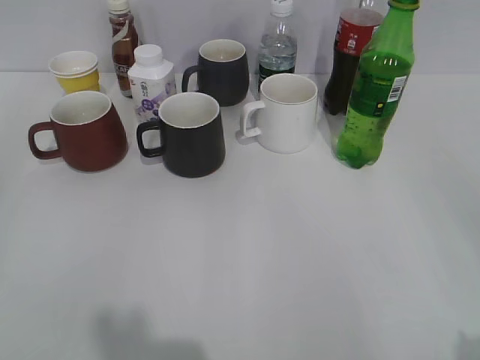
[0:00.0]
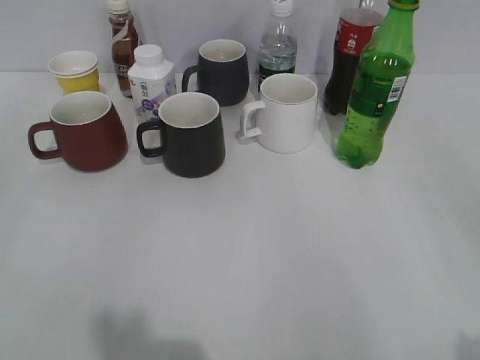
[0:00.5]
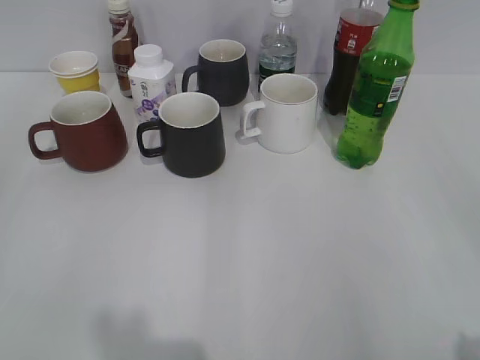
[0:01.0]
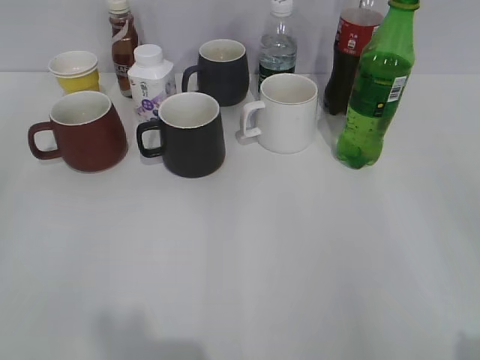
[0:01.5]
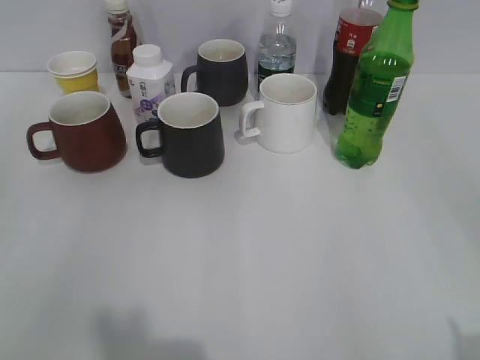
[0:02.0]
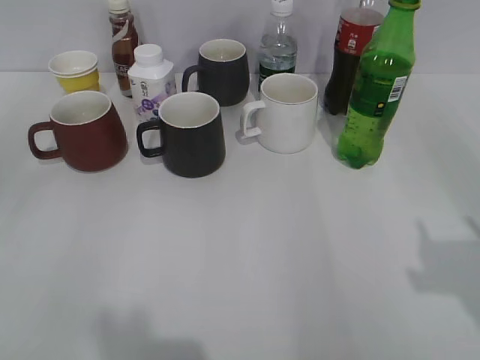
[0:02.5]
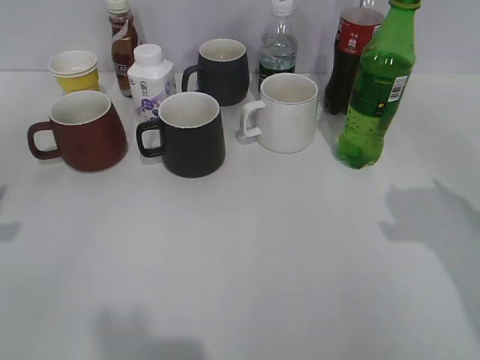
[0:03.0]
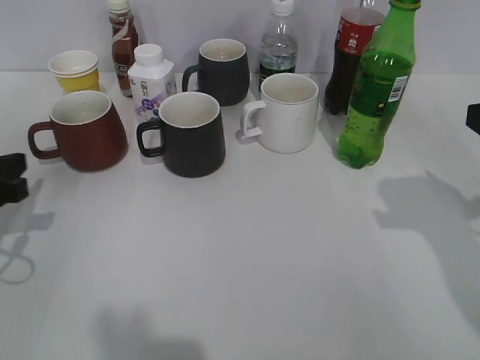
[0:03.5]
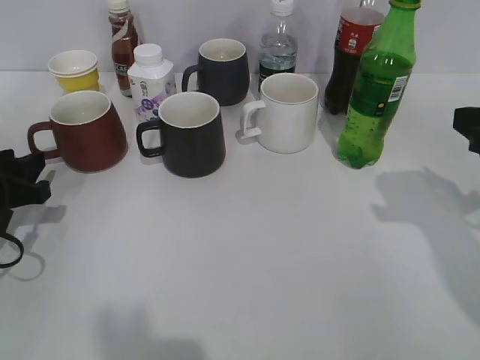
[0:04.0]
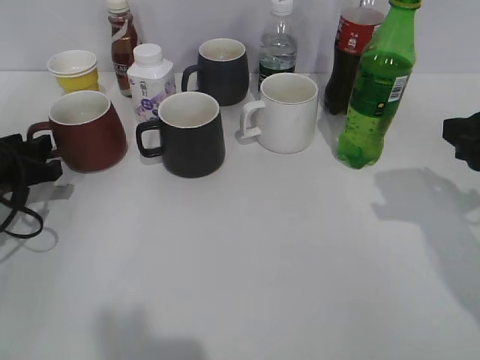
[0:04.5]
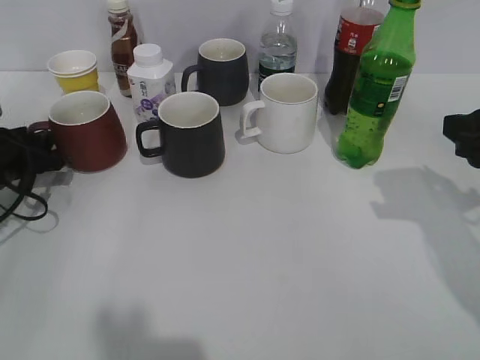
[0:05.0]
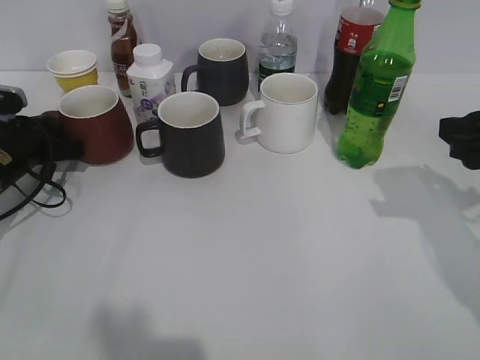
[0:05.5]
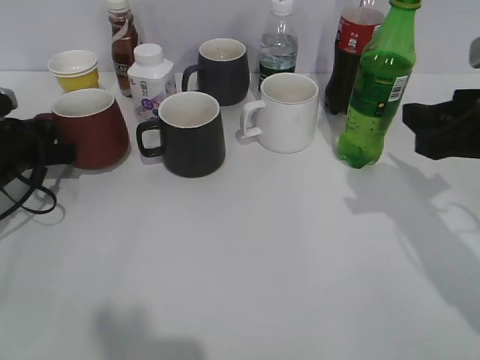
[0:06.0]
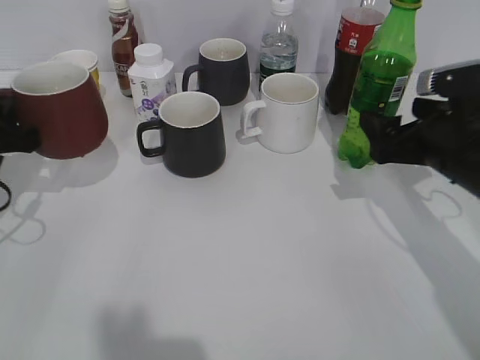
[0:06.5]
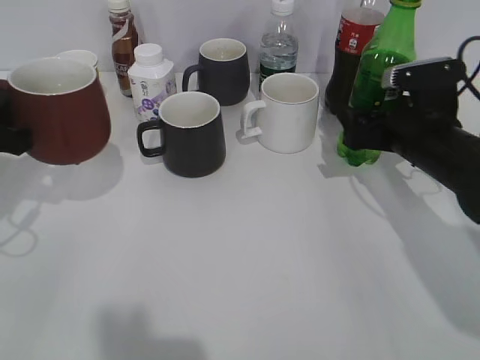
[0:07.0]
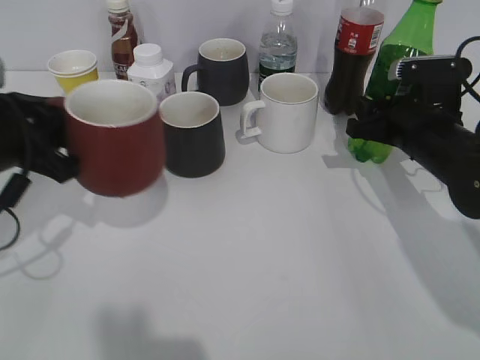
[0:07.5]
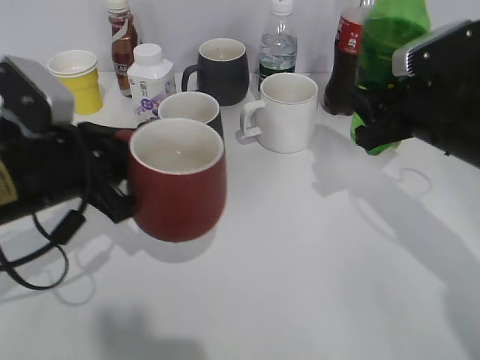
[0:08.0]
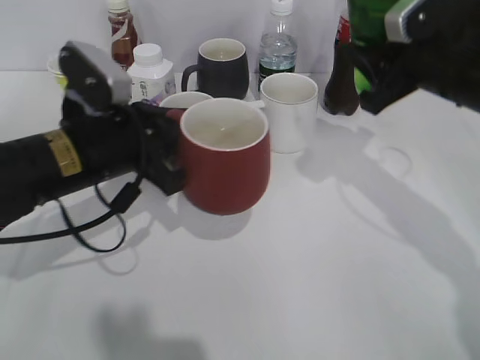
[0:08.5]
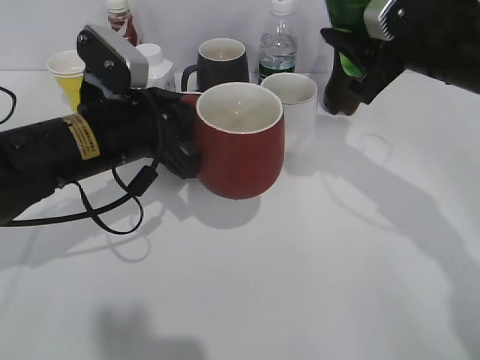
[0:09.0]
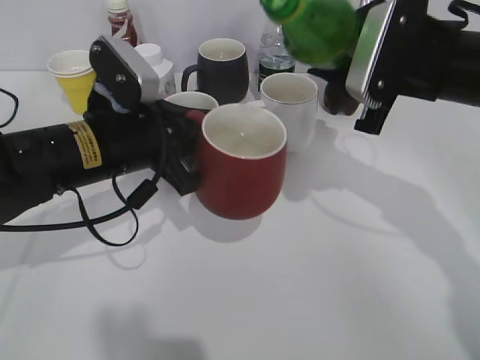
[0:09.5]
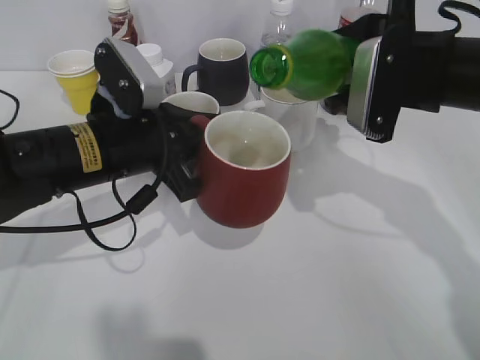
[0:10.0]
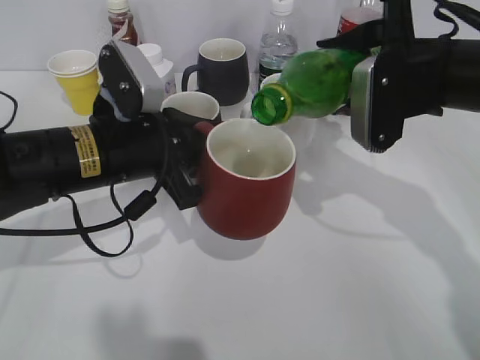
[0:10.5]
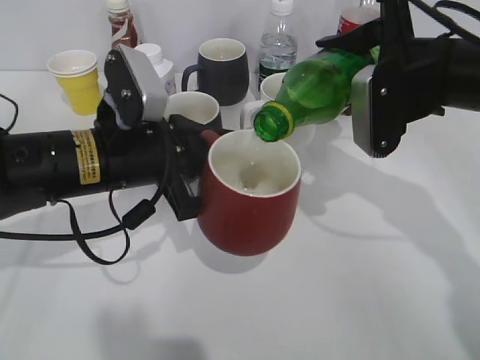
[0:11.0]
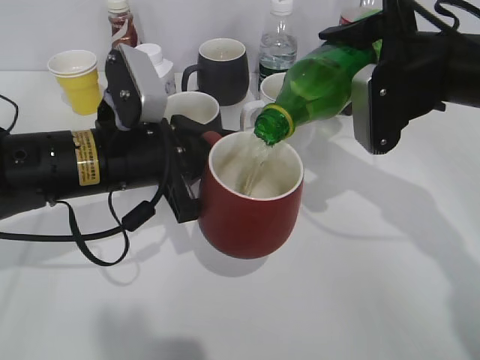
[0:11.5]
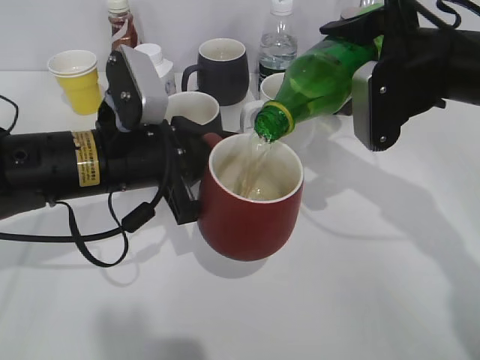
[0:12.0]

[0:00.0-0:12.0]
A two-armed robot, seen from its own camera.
Step, 0:02.0 to 0:05.5: Grasp the red cup with left gripper.
Step, 0:06.0 to 0:07.0: Grasp the bottle with sprite with right gripper.
0:02.0 to 0:04.0: The left gripper moves forward and downward, some 30 cm, and opens; the right gripper heads forward, covering some 20 cm.
0:04.0 to 0:06.0: The left gripper is displaced forward by some 10 cm, and closes.
0:06.0 to 0:08.0: The right gripper closes. The left gripper goes approximately 15 cm to the right, backward and upward.
0:08.0 to 0:10.0: The left gripper is displaced to the right by roughly 5 cm. The right gripper changes place by about 5 cm.

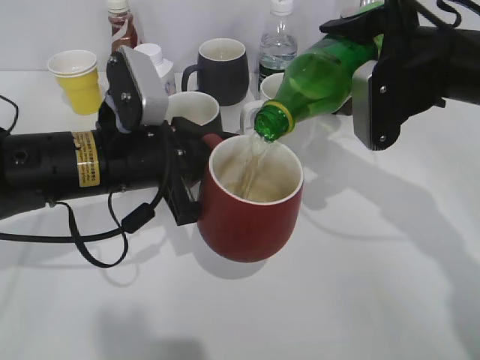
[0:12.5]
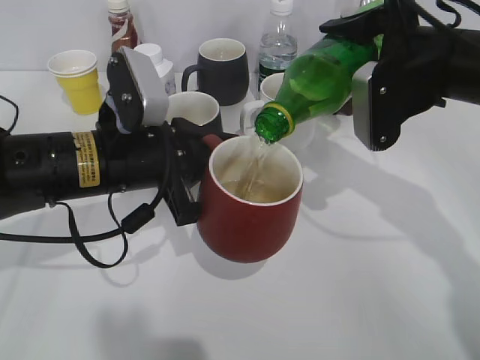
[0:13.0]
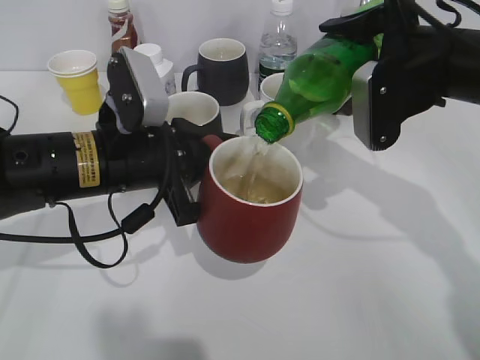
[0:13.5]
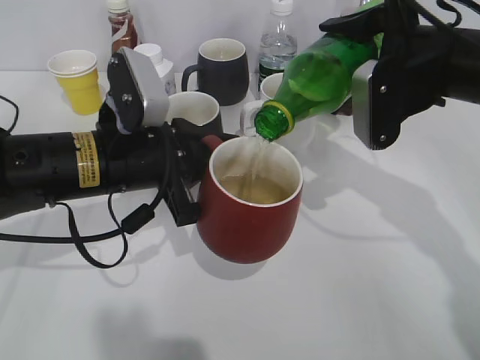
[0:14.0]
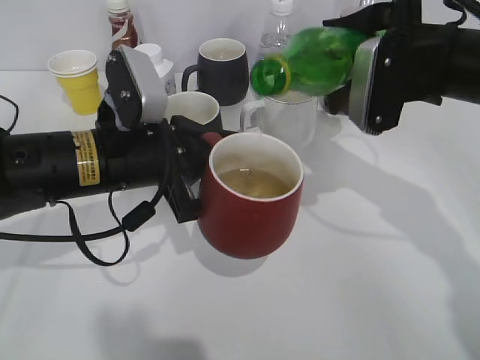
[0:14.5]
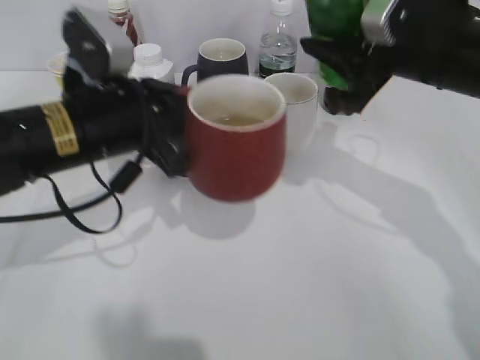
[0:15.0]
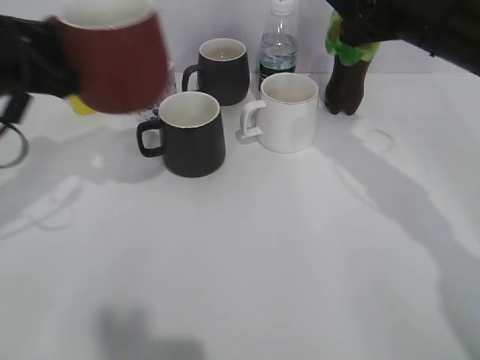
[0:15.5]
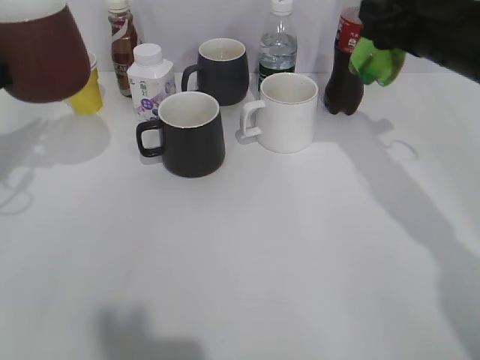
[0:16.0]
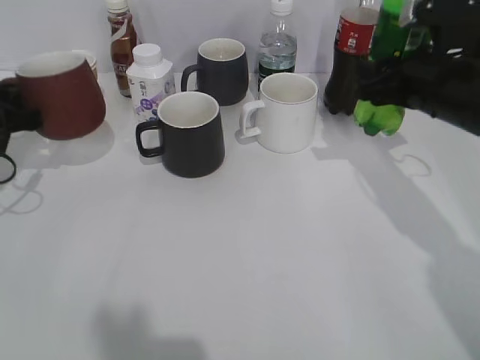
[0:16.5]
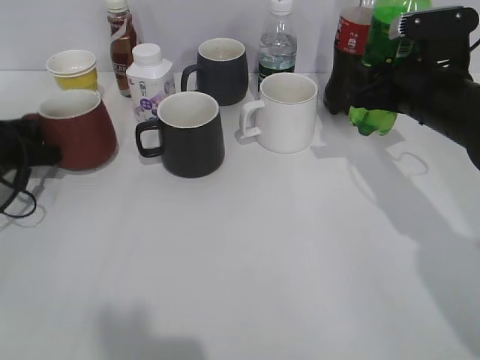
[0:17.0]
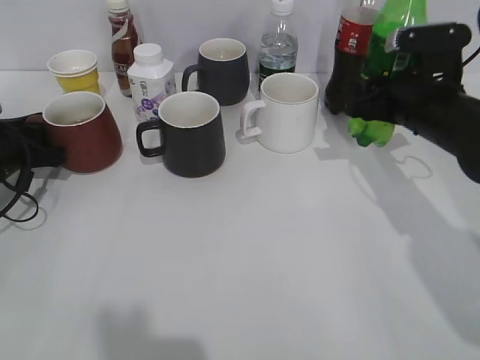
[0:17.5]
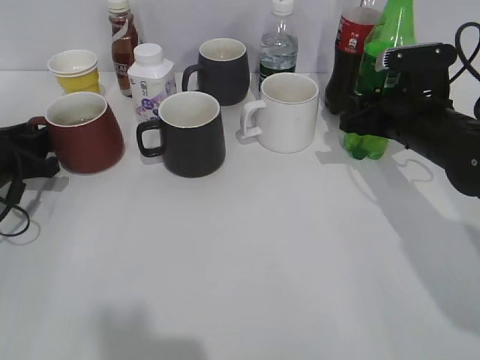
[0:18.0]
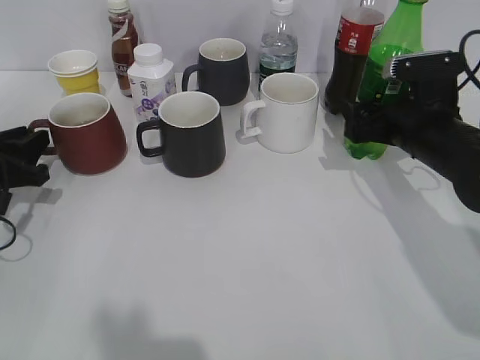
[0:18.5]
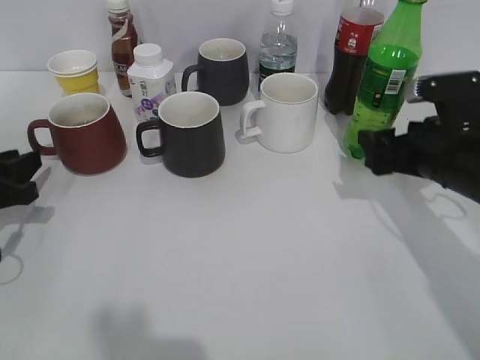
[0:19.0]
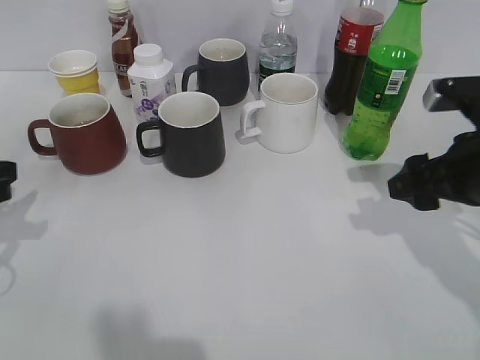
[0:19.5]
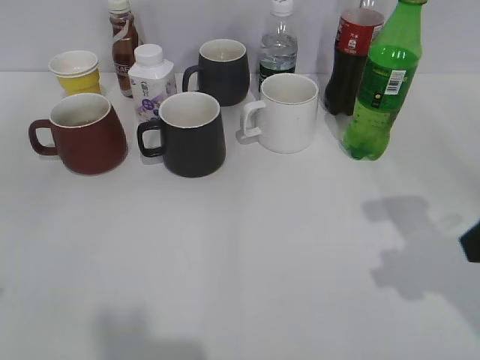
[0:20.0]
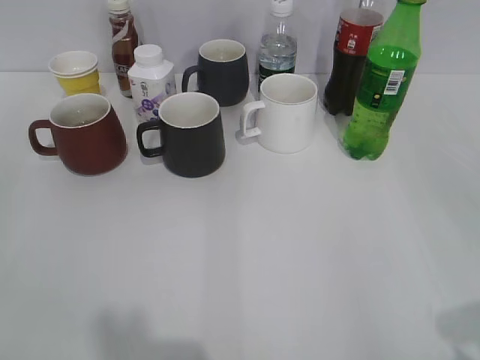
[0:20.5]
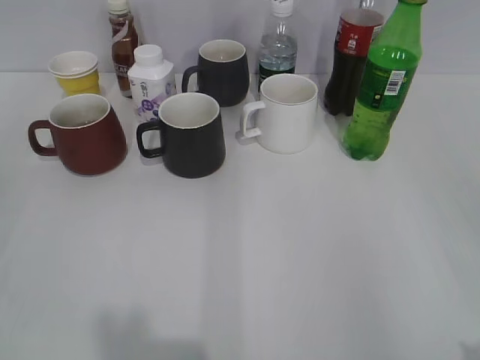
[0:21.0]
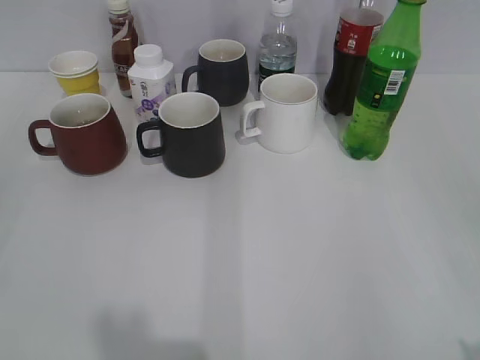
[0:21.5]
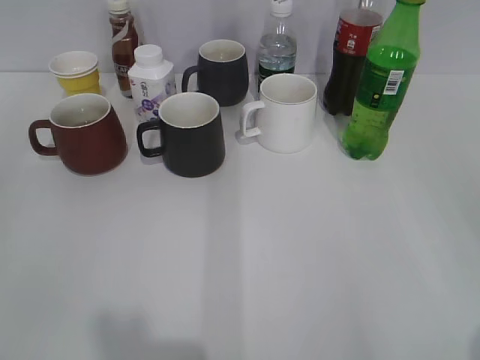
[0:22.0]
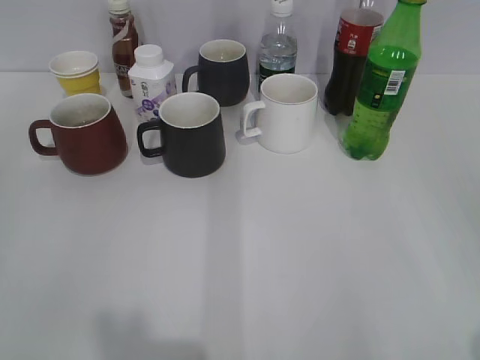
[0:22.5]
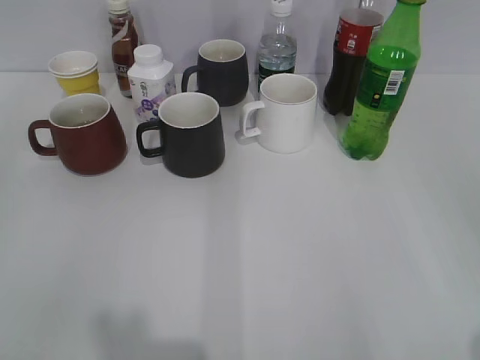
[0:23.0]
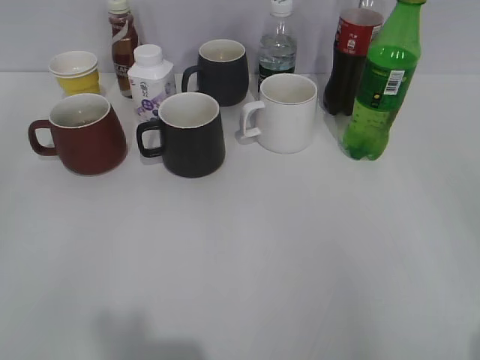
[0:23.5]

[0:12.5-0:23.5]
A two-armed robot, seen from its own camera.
Step, 0:12.5 to 0:14.5: Pour the sprite from bottle to cup with right gripper.
Step, 0:15.0 to 0:15.5: Place the red cup on the table with left gripper.
Step, 0:16.0 to 0:18.5: Place the sprite bottle on the table with right gripper.
0:12.5 to 0:14.5: The grippers make only small movements.
0:14.5 to 0:16.0: The left gripper goes approximately 20 cm to the left.
0:16.0 to 0:18.0: Both grippers move downward, about 10 cm. The left gripper opens.
0:18.0 to 0:20.0: The two grippers go approximately 25 cm backward and upward. The right gripper opens up.
0:20.0 to 0:21.5: The right gripper moves backward, roughly 15 cm.

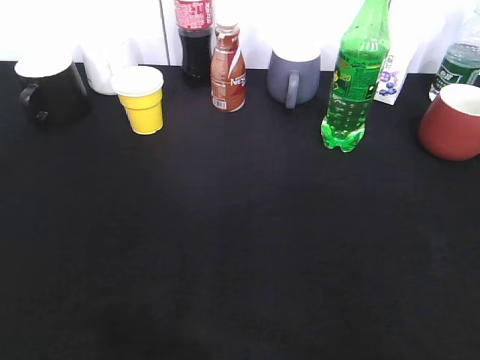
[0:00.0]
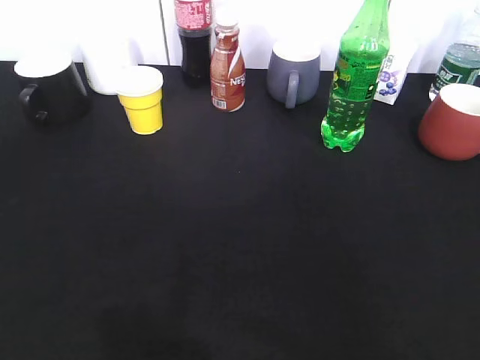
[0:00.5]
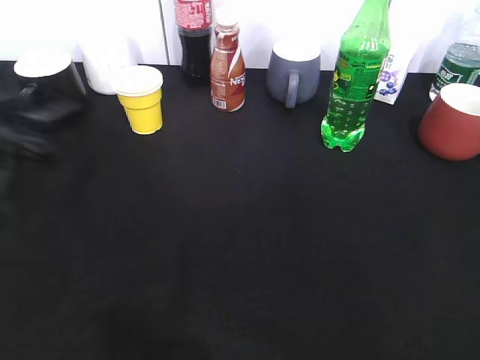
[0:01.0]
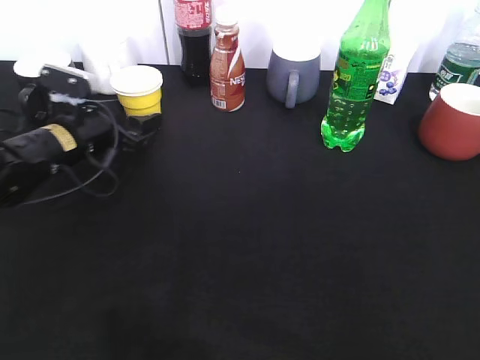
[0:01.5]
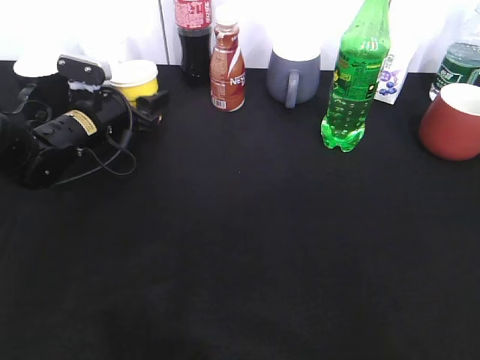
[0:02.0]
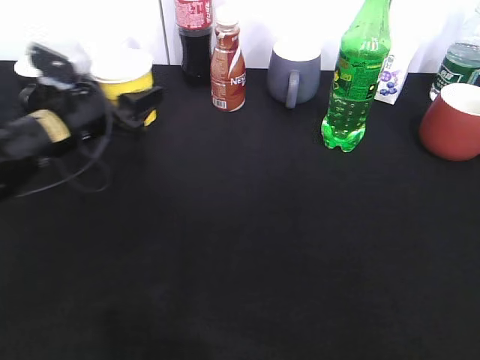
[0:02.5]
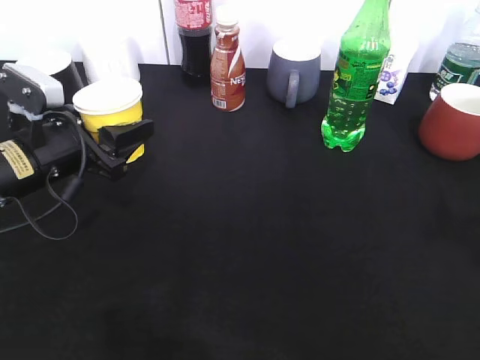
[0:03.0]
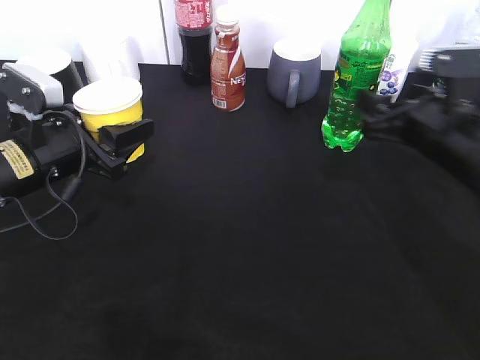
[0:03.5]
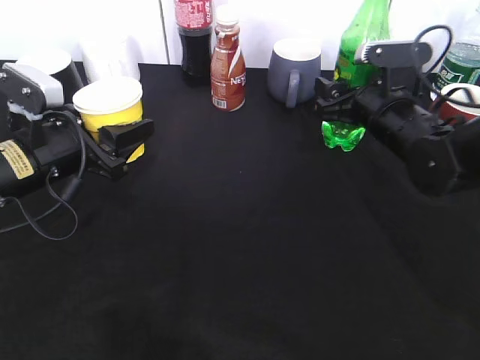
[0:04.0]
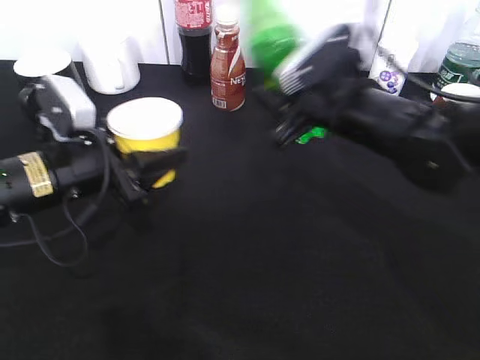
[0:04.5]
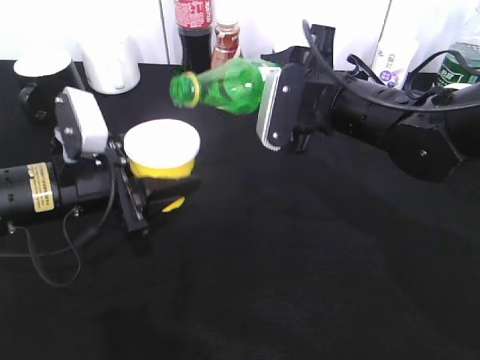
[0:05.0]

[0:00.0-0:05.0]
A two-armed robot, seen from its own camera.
Step, 0:00.0 to 0:02.0: Grasp the yellow paper cup with left gripper.
Step, 0:02.5 to 0:03.0: Lift the yellow paper cup with left gripper.
Step, 0:03.5 to 0:04.0: Grasp the bottle with sprite with right gripper.
0:00.0 to 0:02.5: The left gripper travels forward by roughly 35 cm, and closes its fingers.
0:02.5 to 0:05.0: The right gripper goes some 40 cm forward and to the left, and closes up. The left gripper moves backward, about 10 cm.
